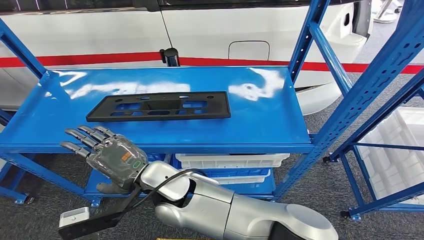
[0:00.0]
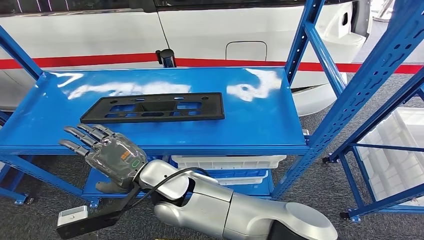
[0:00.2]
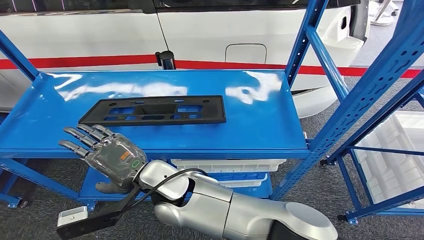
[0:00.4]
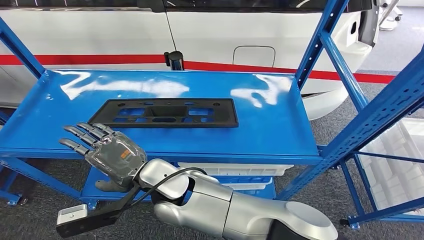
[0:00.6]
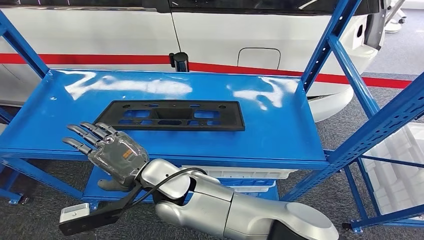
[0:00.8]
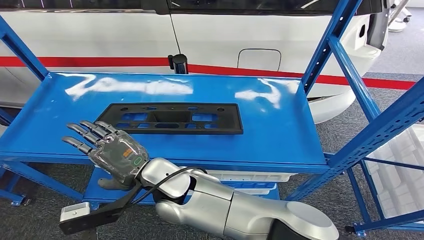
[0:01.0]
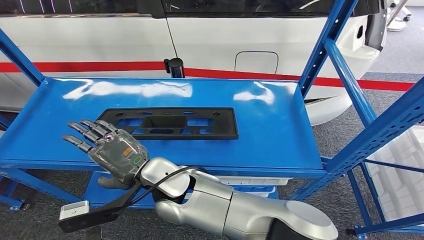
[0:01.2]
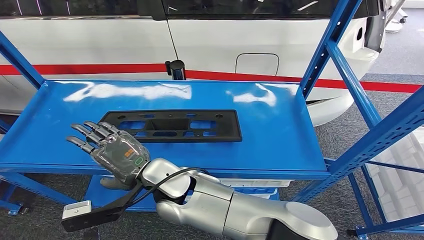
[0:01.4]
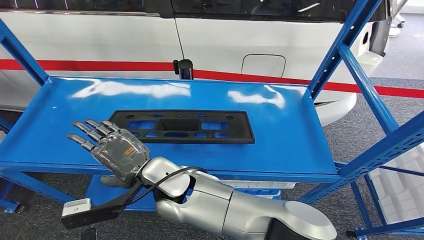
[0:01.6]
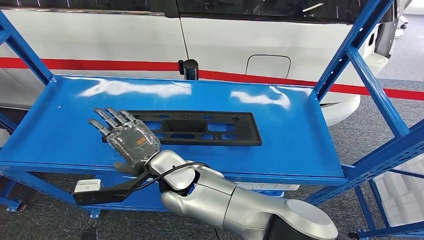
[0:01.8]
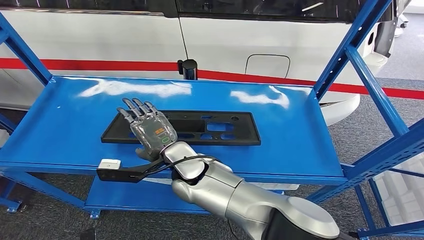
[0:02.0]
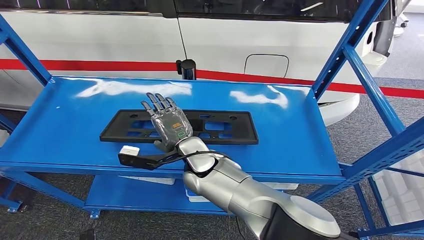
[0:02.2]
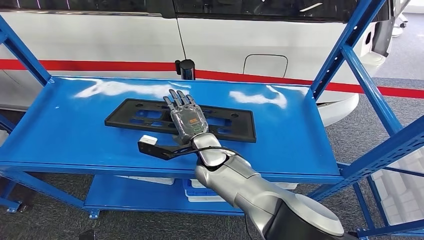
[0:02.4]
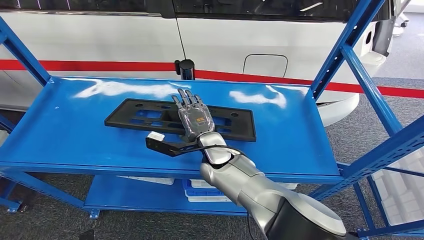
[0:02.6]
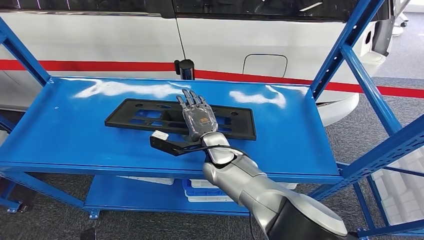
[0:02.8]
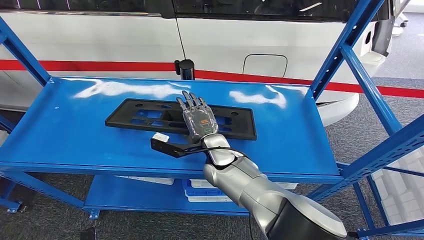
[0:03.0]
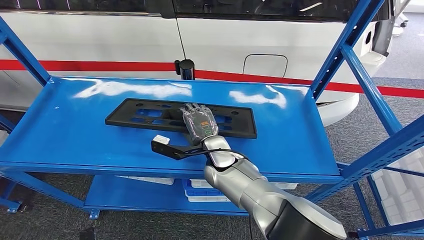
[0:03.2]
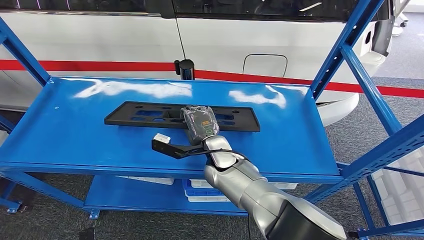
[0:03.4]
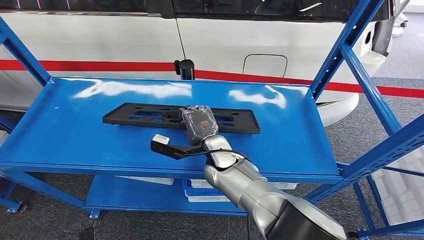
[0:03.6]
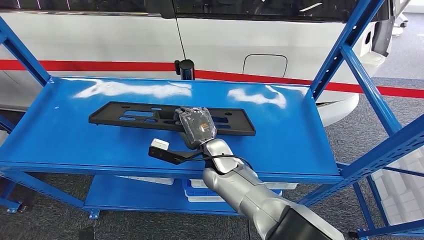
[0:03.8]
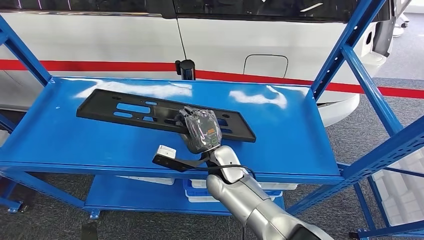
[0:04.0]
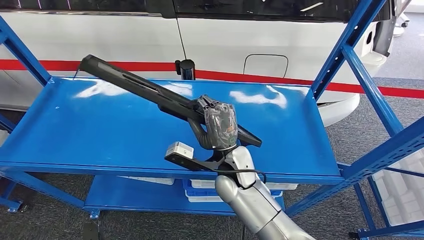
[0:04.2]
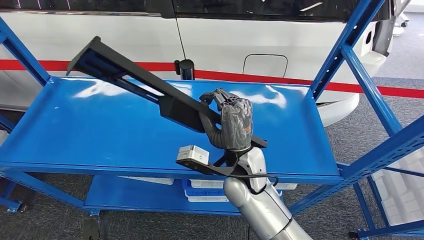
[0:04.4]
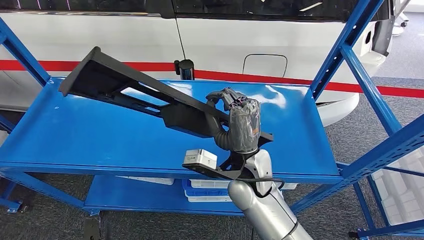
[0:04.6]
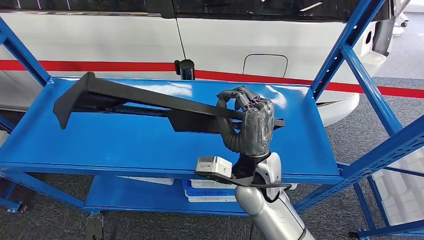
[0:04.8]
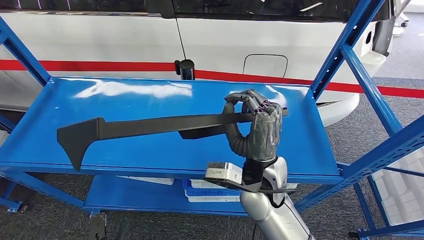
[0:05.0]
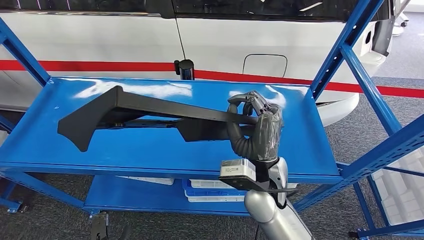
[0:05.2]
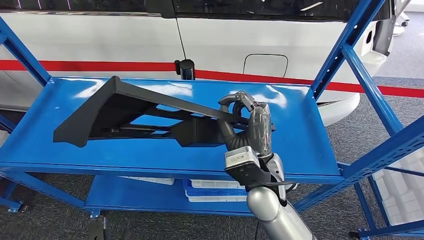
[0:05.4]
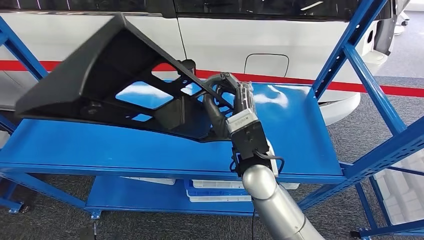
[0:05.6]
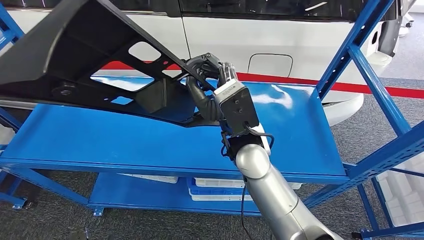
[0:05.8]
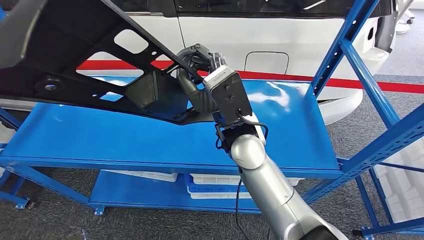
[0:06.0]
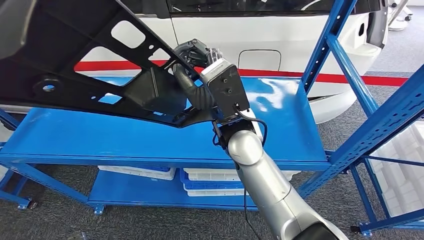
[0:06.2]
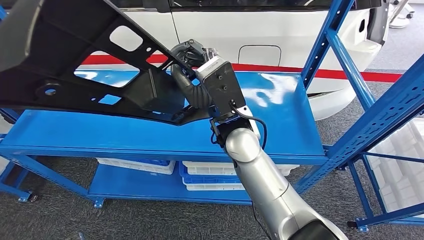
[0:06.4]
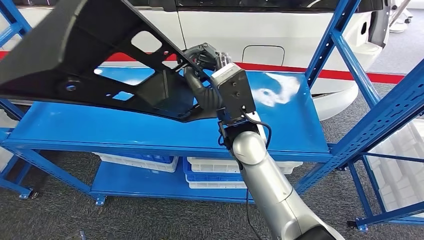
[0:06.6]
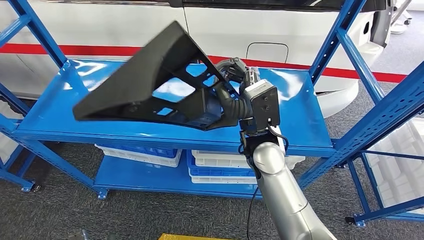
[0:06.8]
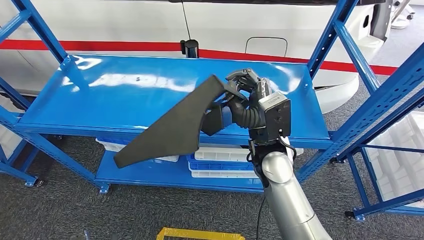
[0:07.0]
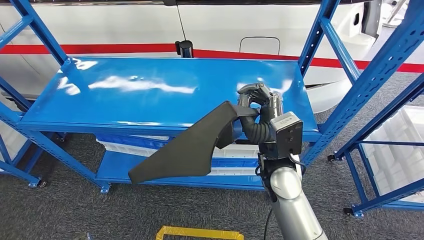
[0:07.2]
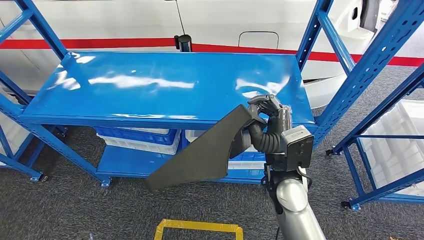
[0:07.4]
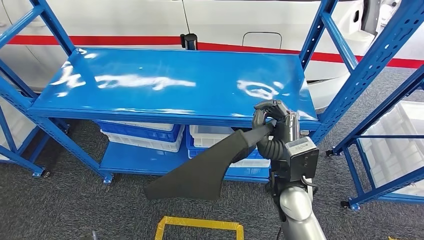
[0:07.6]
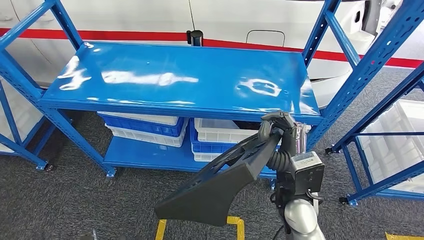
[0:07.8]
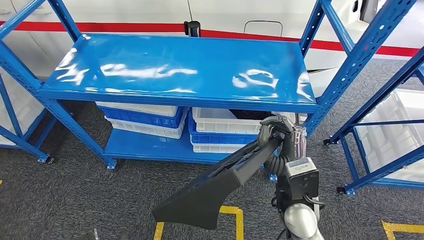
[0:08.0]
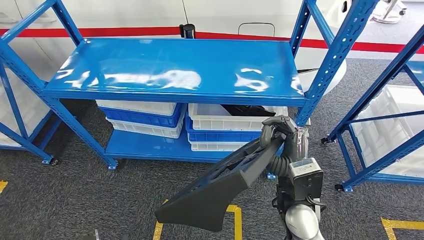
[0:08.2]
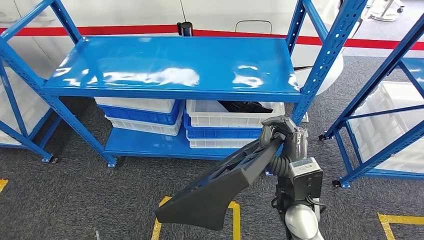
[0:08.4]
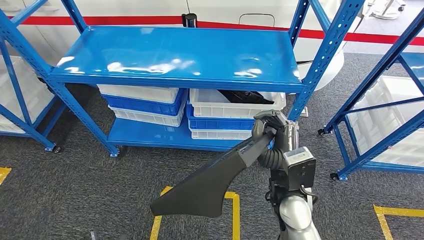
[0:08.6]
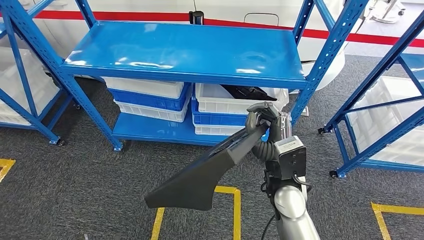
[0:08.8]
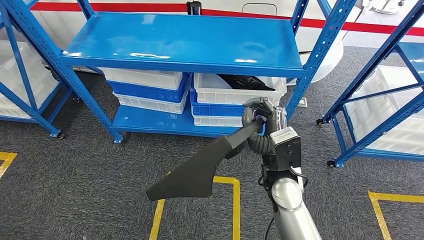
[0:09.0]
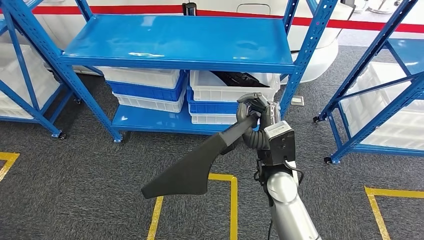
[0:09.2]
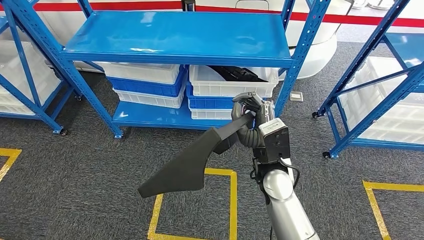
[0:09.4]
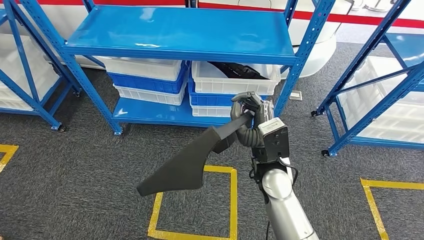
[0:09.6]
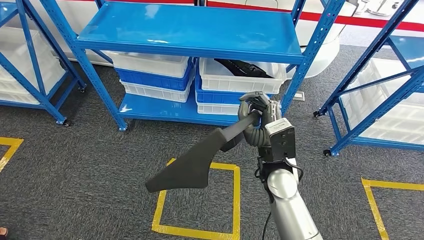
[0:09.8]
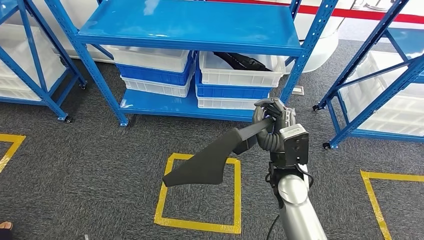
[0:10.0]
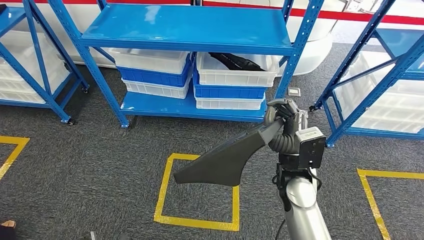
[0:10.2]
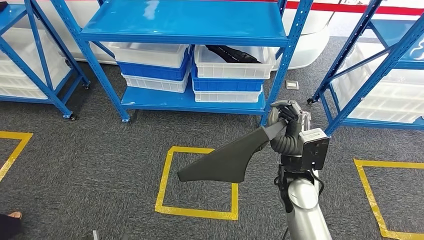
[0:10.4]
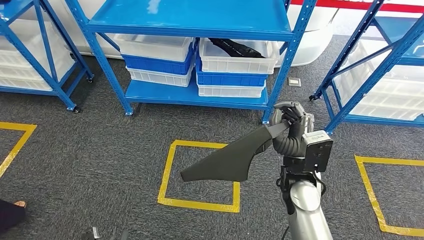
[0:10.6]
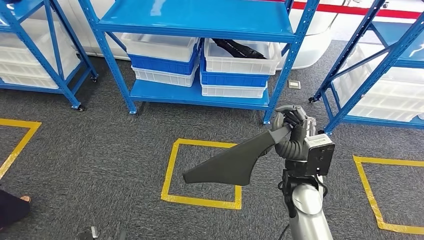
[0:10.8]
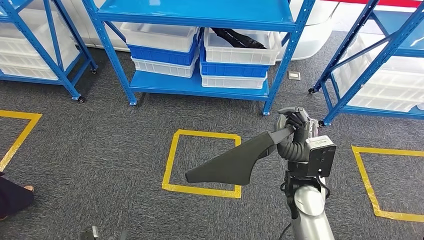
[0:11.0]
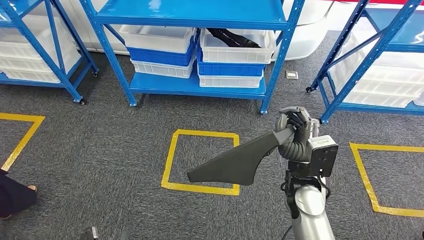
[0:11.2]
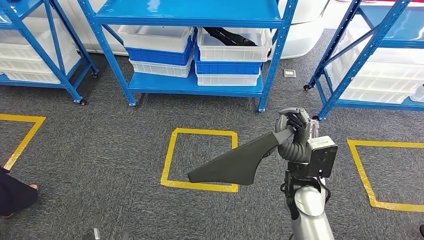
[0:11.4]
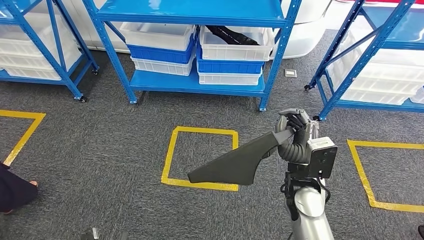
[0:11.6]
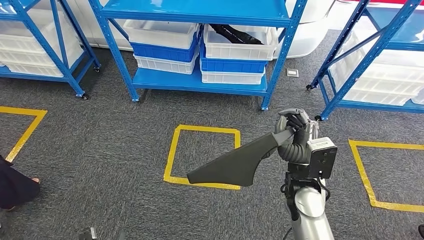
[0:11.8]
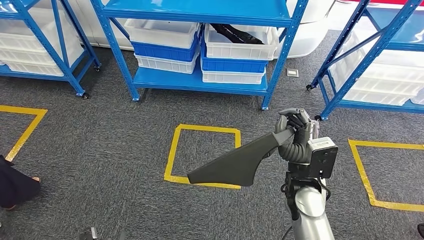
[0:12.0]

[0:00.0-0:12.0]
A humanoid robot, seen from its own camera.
Step, 0:00.0 to 0:06.2: Pick up the large material from the shelf.
0:03.0 to 0:04.4: The right hand travels backward by roughly 5 cm.

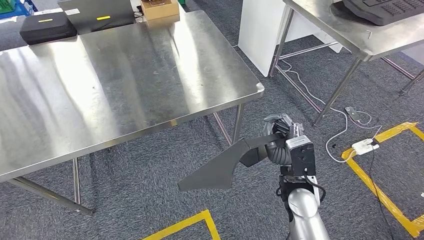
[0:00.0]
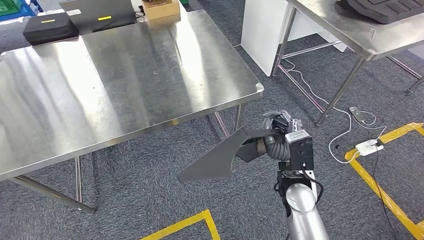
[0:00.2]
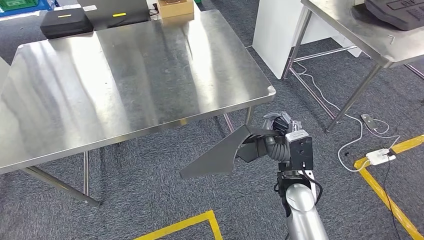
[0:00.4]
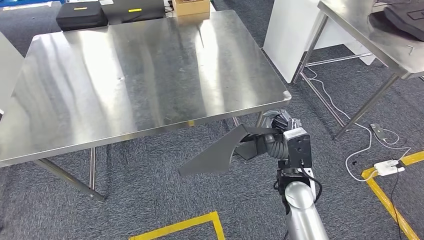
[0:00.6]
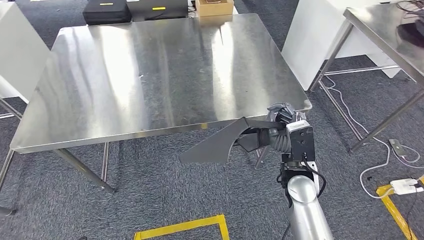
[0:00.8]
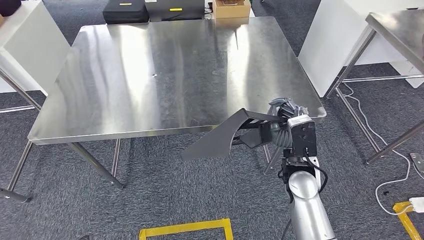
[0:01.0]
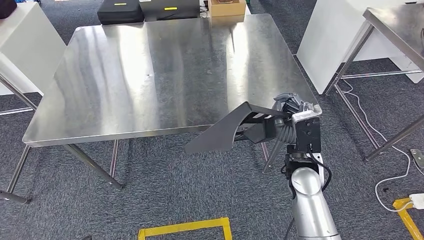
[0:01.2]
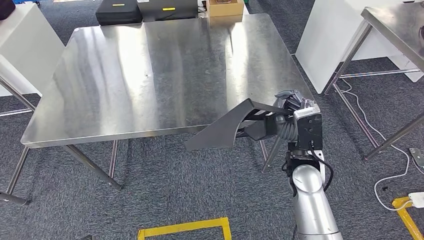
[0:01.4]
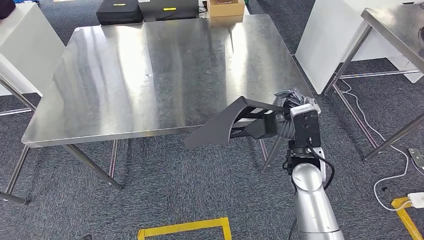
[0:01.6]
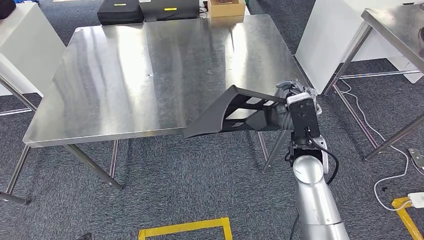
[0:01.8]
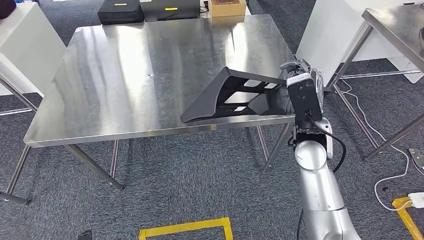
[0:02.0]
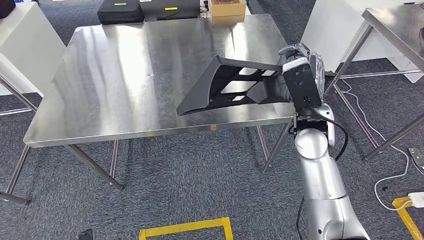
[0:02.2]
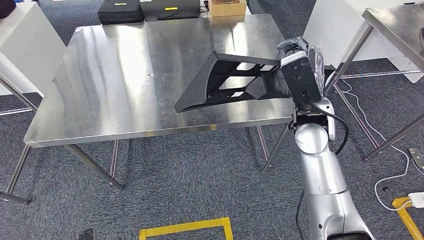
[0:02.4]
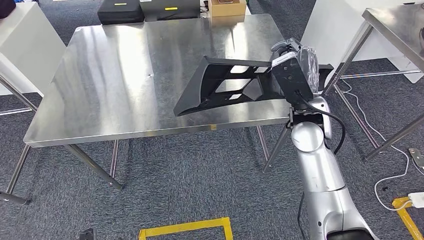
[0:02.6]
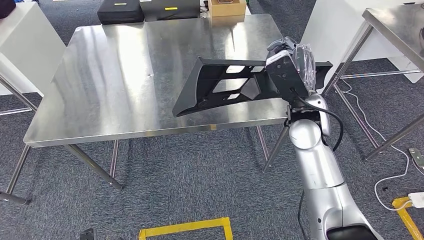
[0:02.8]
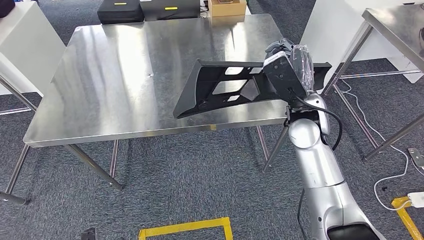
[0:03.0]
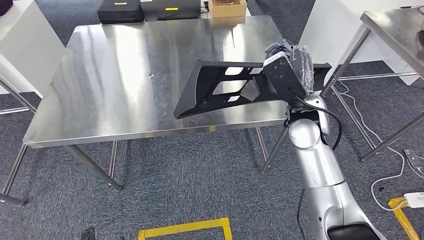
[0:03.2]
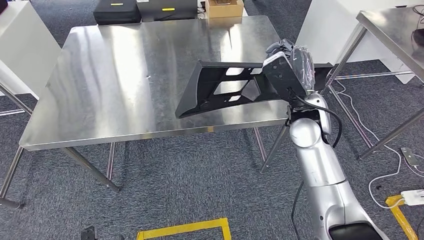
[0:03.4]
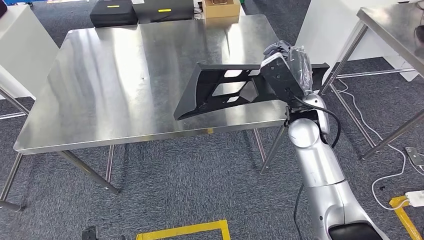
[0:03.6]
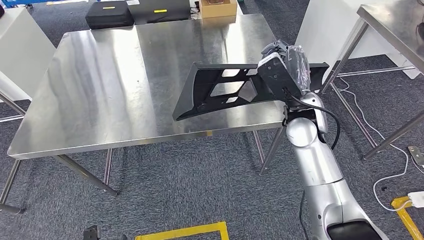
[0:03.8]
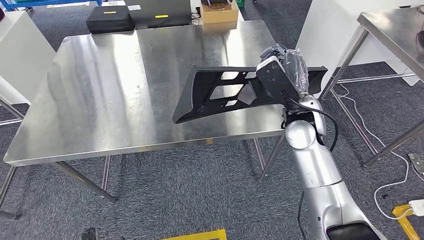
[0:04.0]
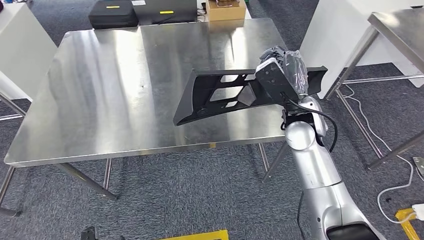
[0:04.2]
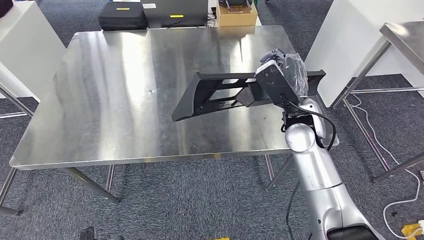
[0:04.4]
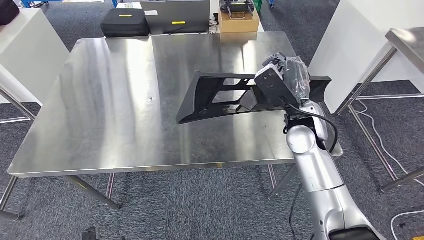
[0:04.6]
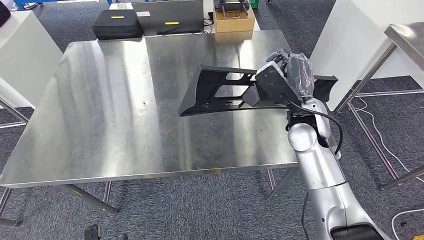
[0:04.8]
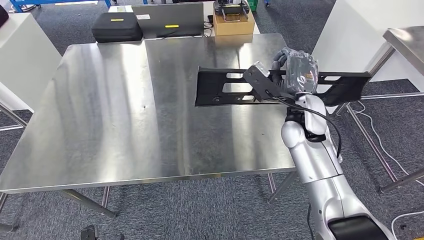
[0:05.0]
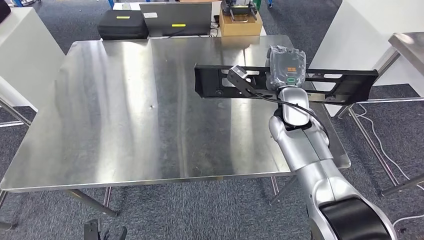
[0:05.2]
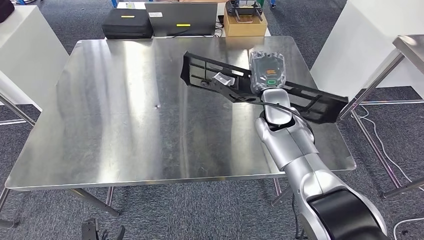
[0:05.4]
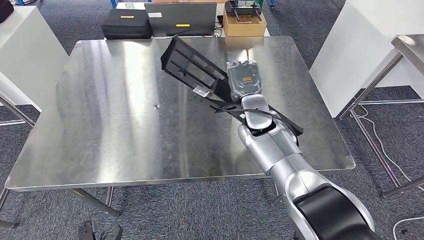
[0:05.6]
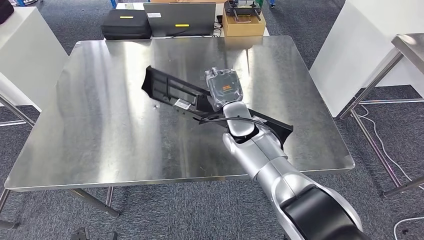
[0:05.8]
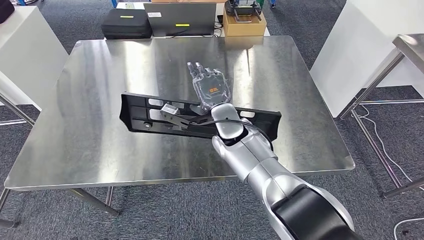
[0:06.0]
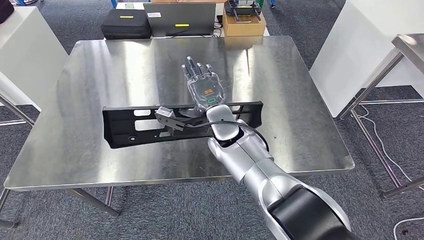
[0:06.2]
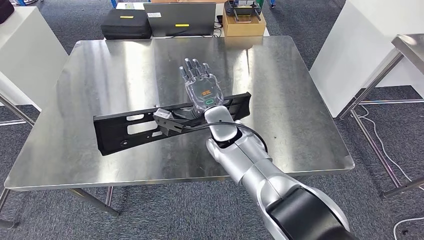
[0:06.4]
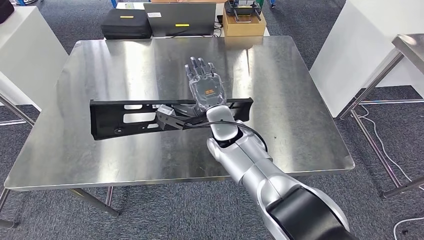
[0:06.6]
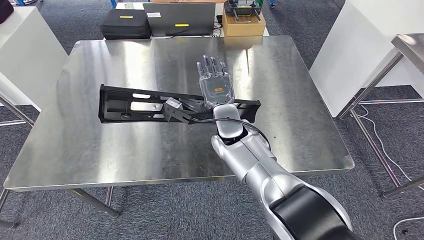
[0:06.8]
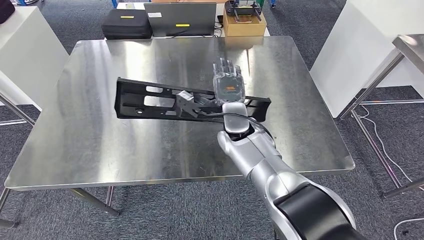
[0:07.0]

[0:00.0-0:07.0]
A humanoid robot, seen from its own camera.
Step, 0:00.0 to 0:02.4: Move the large material to the workbench.
0:01.4 to 0:02.8: The right hand is displaced upward and forward by roughly 10 cm.
0:05.6 to 0:07.0: The right hand is displaced to the left by roughly 5 cm. The left hand travels backward by roughly 5 cm.
